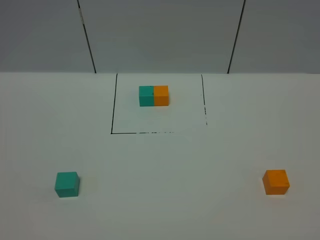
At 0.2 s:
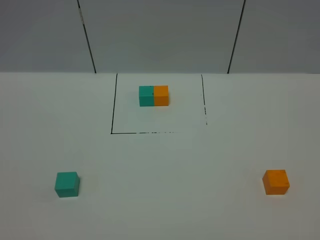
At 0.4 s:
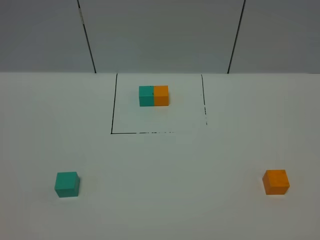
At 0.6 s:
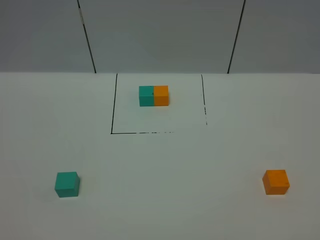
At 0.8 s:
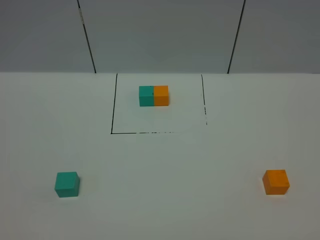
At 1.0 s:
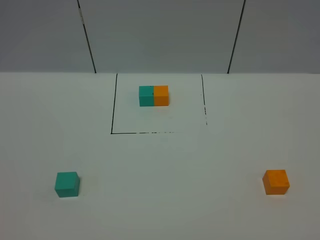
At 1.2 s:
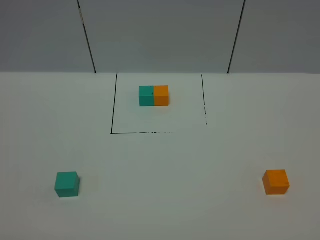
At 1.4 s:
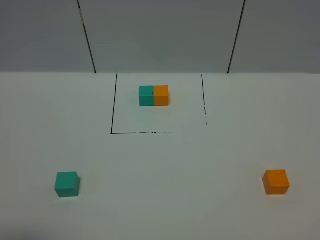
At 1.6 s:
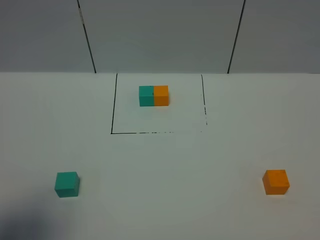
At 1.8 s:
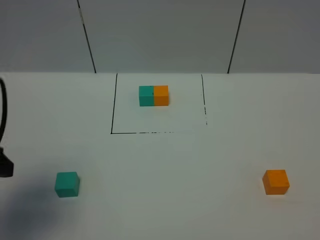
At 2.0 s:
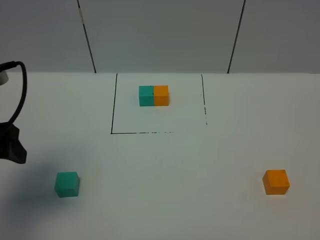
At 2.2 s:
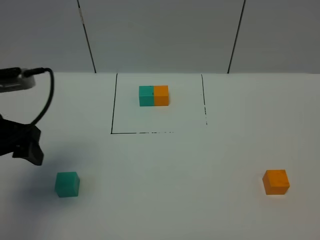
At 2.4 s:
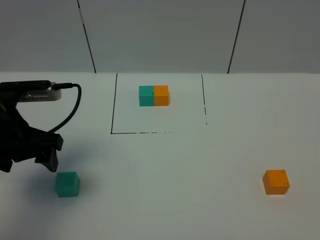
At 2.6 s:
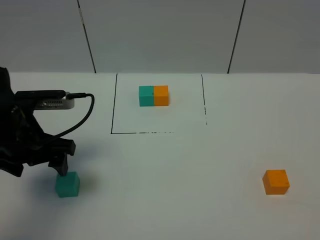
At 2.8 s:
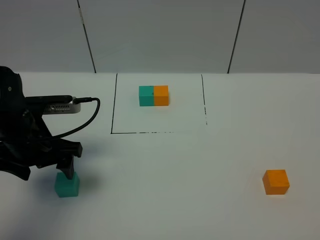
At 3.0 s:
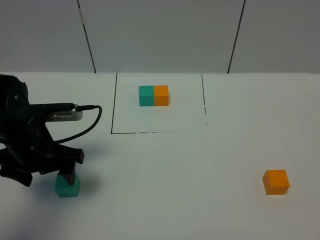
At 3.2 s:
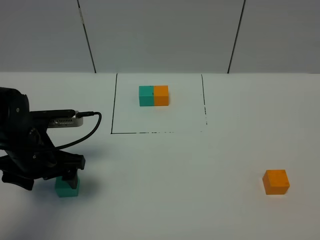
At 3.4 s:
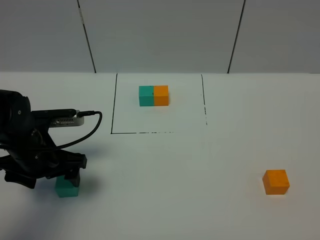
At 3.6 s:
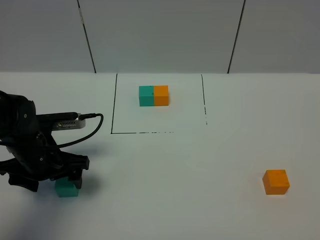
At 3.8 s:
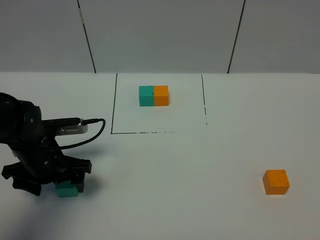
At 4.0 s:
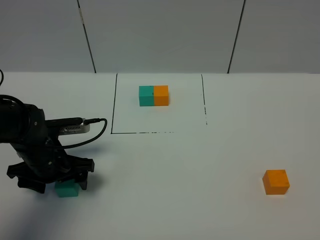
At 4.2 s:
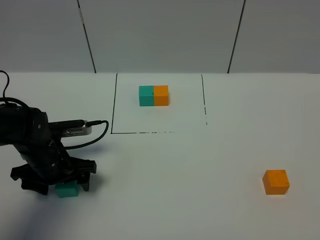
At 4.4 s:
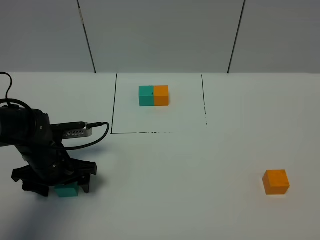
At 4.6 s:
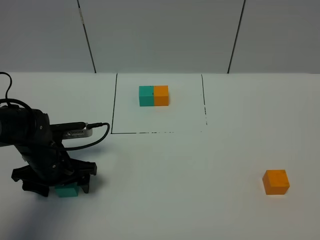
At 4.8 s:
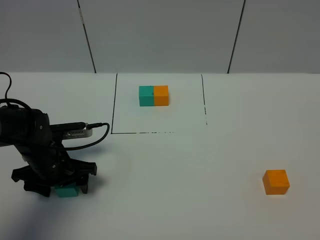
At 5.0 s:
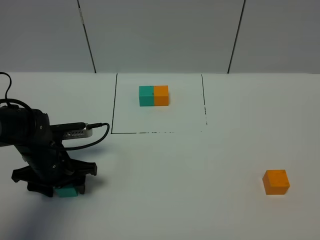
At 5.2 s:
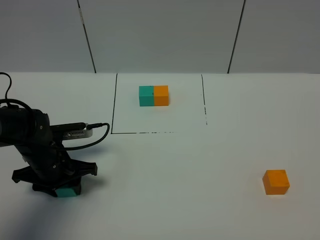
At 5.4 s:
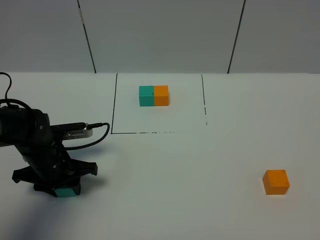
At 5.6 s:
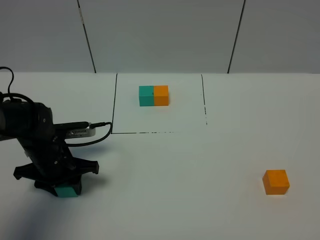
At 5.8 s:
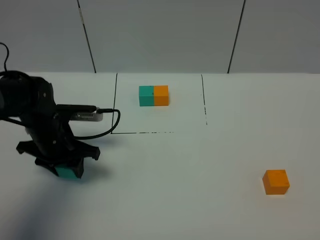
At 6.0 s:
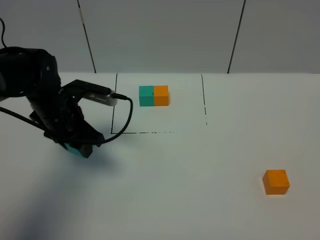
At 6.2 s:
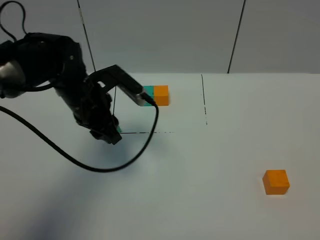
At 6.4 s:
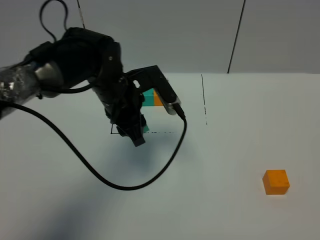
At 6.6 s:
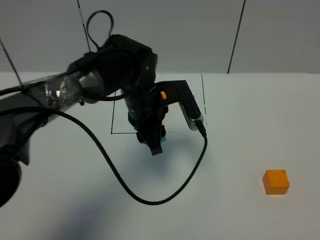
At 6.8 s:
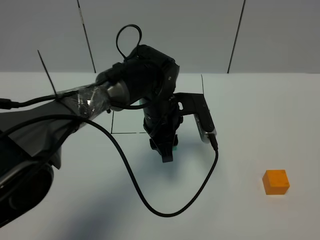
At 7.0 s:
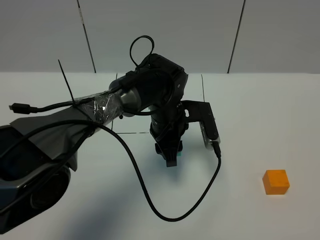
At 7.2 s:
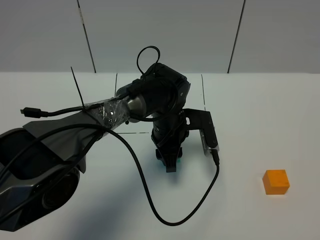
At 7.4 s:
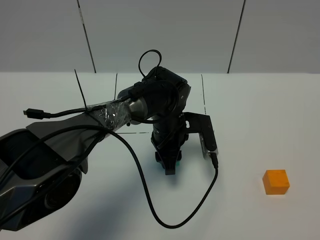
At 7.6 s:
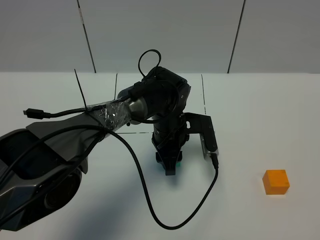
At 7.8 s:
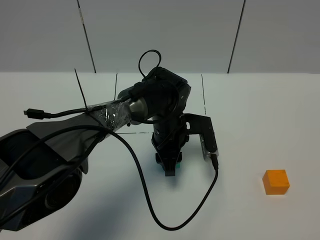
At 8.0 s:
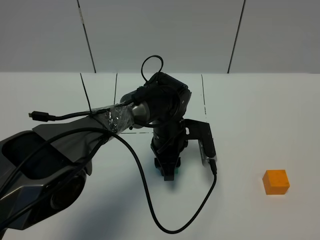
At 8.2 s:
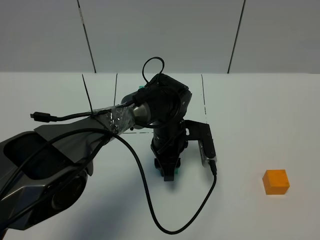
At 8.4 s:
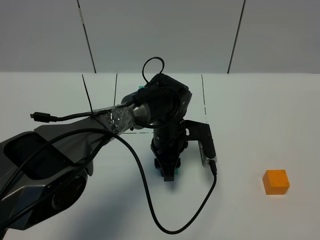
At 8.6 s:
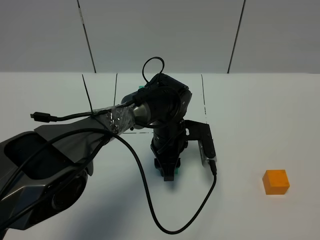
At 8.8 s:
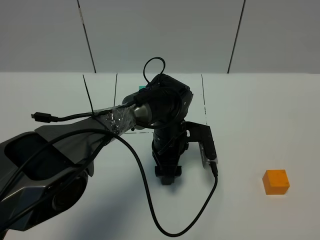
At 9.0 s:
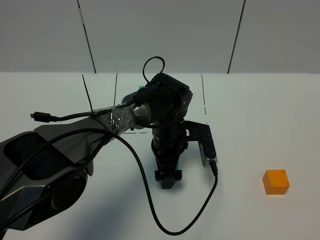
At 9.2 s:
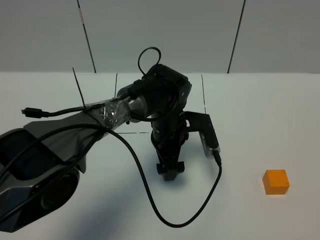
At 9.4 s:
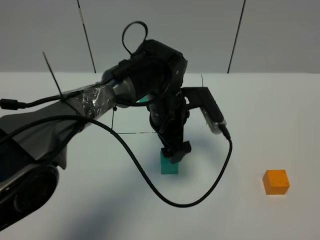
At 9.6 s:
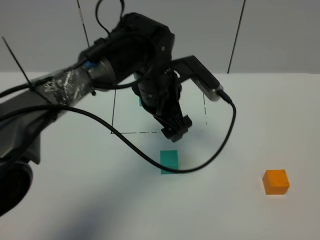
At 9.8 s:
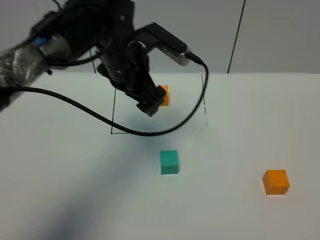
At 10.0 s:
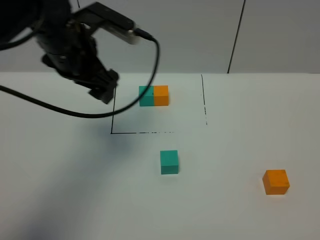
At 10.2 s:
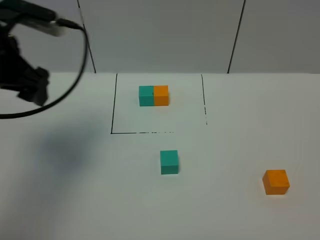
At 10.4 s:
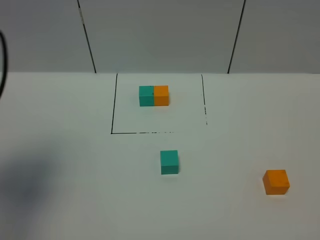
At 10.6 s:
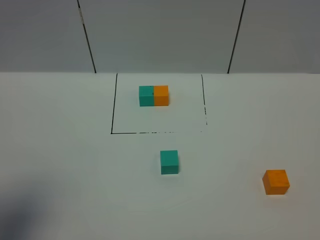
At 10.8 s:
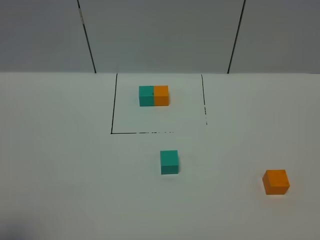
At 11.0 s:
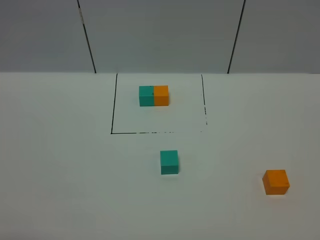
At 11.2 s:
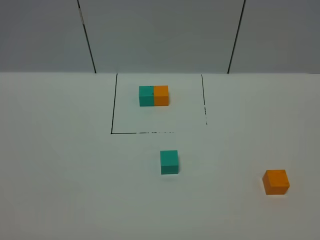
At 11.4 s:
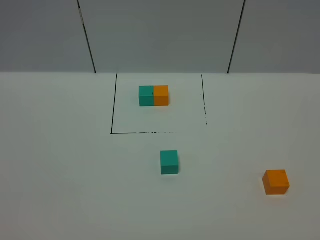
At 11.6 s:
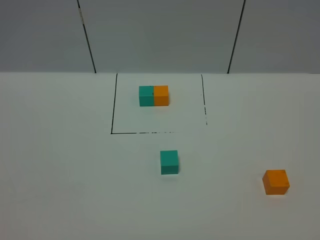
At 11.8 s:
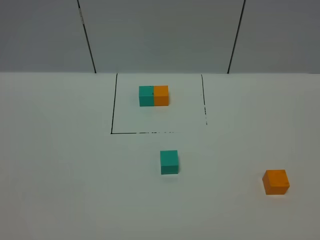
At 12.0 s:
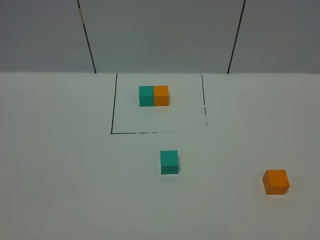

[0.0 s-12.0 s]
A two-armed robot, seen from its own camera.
Task of the whole recording: According to the building block template in front, assemble the scattered blocks together.
Step, 1.8 to 8.8 s: Put the green cube in the center of the table.
0.0 to 1.6 s: The left gripper is displaced forward by roughly 15 cm.
1.6 to 3.0 s: The left gripper travels forward, downward and to the right by roughly 20 cm.
3.0 to 4.4 s: The left gripper travels downward by about 10 cm.
4.4 to 6.0 s: The left gripper goes some 10 cm upward and forward, and closes up.
6.0 to 7.6 s: The left gripper shifts roughly 20 cm to the right.
7.6 to 9.0 s: The left gripper opens its fingers.
9.0 to 10.4 s: The left gripper heads to the left, upward and backward, covering some 50 cm.
10.4 to 12.0 s: The left gripper shifts roughly 25 cm backward and downward.

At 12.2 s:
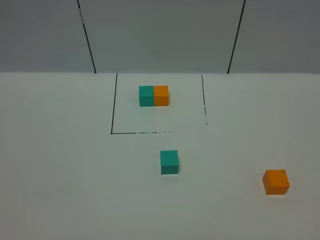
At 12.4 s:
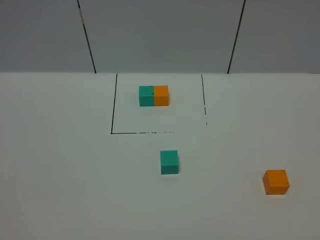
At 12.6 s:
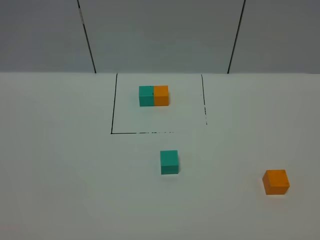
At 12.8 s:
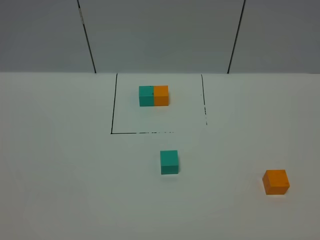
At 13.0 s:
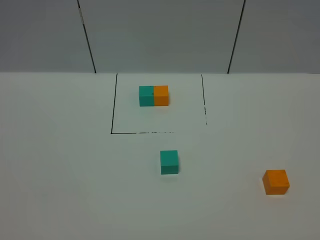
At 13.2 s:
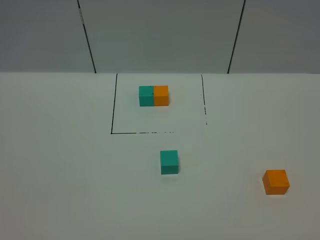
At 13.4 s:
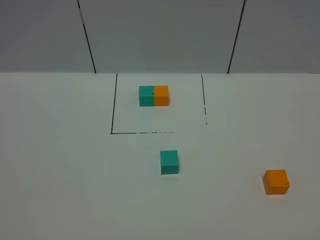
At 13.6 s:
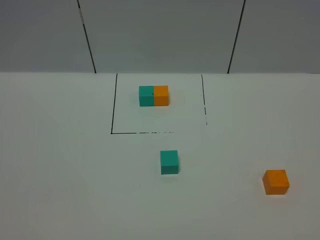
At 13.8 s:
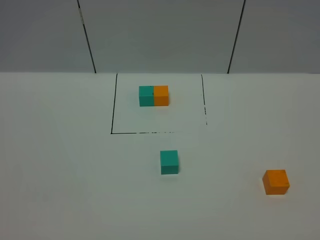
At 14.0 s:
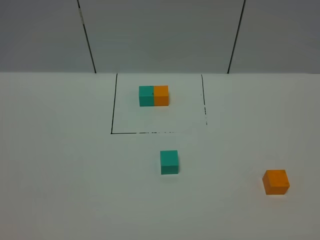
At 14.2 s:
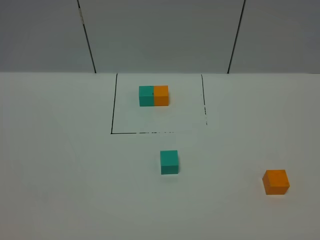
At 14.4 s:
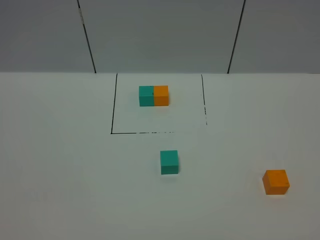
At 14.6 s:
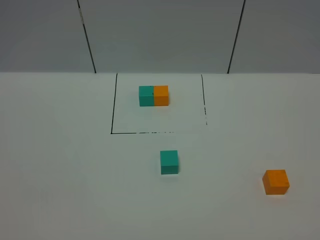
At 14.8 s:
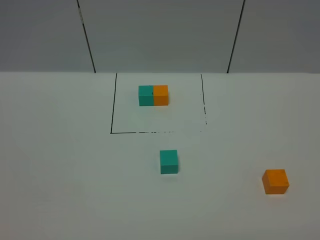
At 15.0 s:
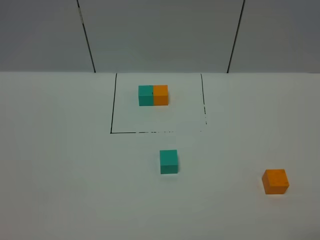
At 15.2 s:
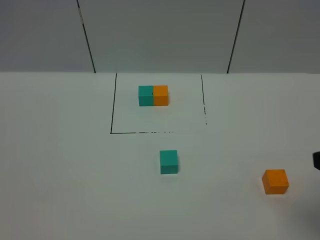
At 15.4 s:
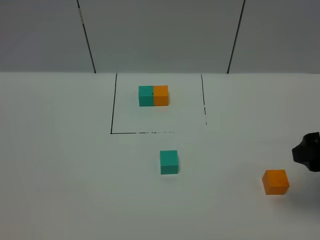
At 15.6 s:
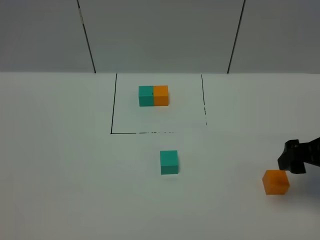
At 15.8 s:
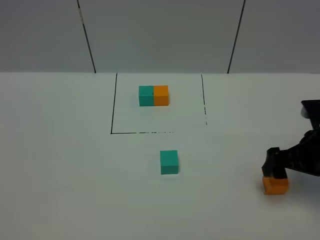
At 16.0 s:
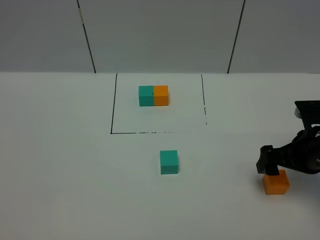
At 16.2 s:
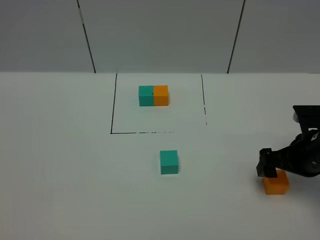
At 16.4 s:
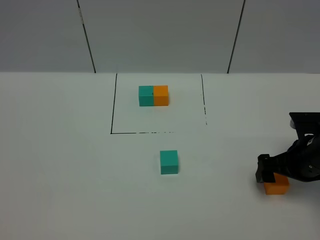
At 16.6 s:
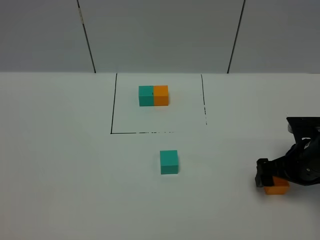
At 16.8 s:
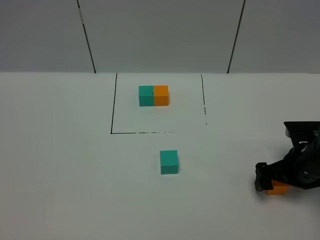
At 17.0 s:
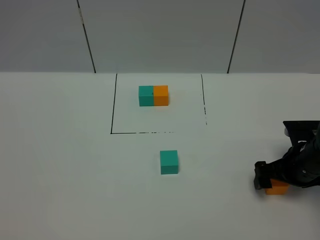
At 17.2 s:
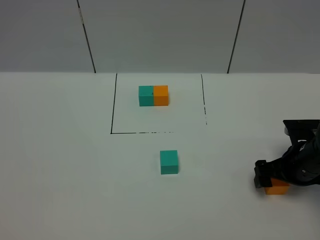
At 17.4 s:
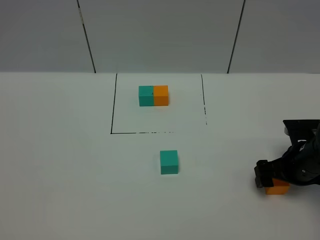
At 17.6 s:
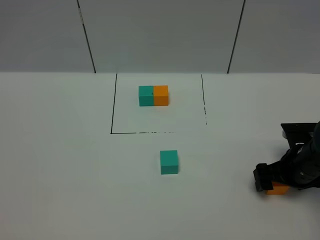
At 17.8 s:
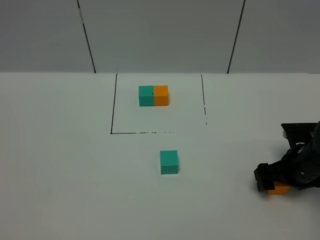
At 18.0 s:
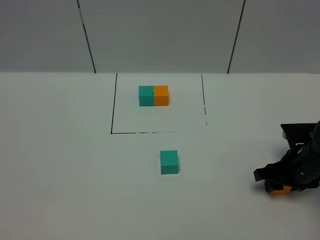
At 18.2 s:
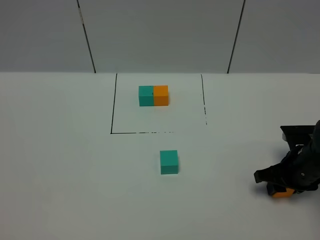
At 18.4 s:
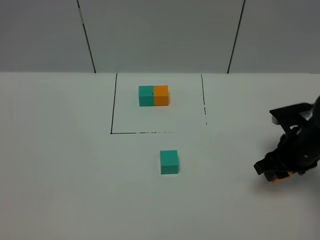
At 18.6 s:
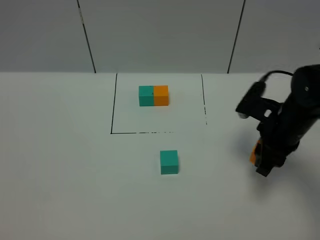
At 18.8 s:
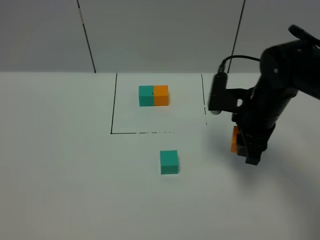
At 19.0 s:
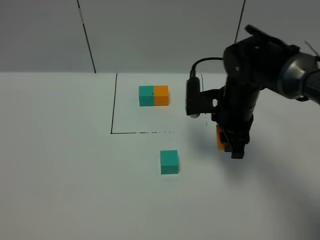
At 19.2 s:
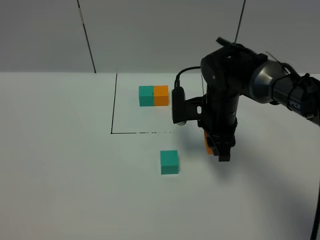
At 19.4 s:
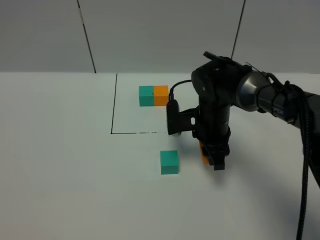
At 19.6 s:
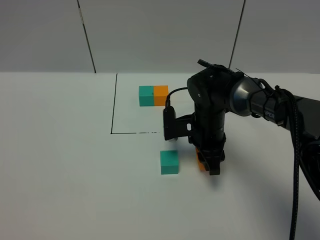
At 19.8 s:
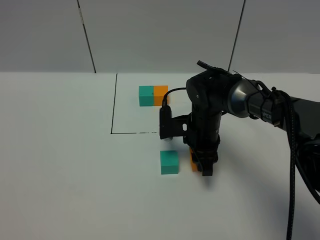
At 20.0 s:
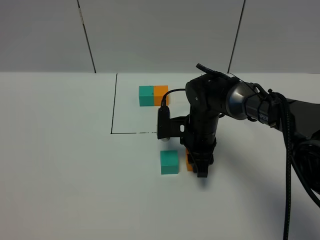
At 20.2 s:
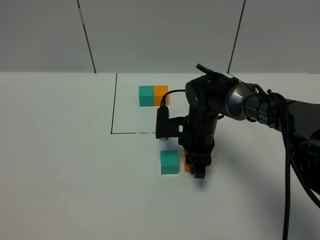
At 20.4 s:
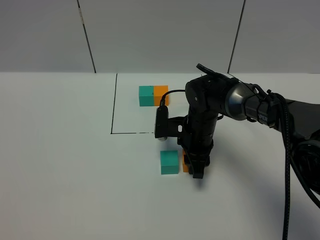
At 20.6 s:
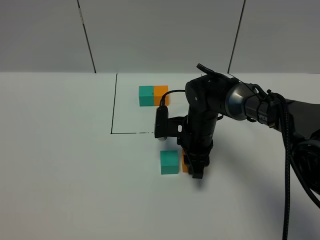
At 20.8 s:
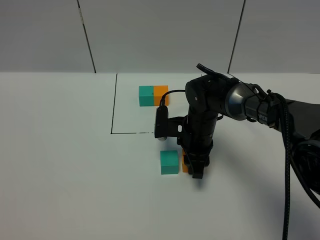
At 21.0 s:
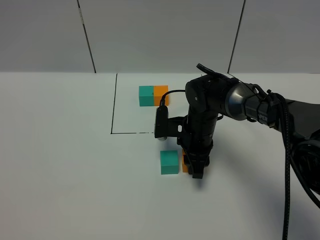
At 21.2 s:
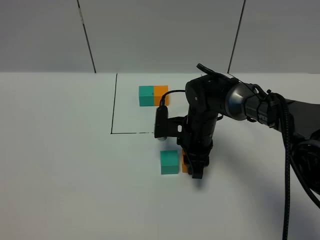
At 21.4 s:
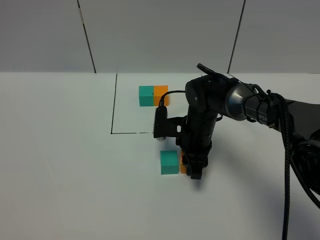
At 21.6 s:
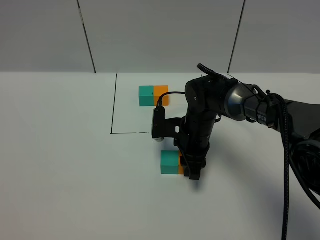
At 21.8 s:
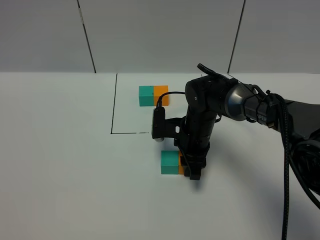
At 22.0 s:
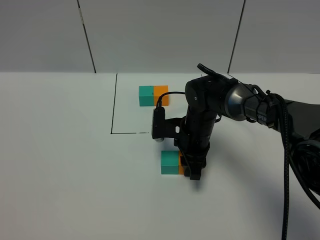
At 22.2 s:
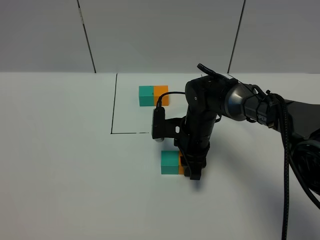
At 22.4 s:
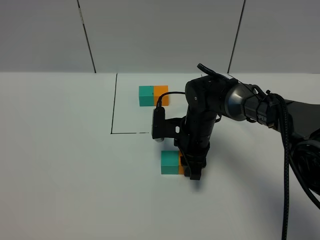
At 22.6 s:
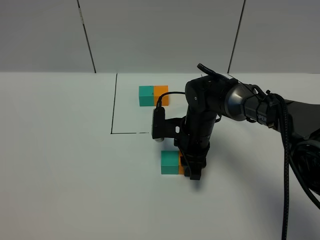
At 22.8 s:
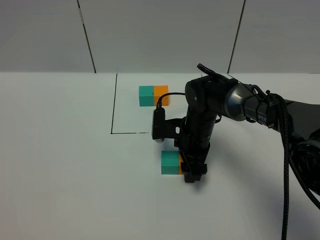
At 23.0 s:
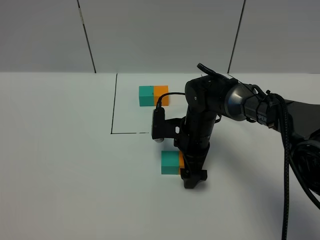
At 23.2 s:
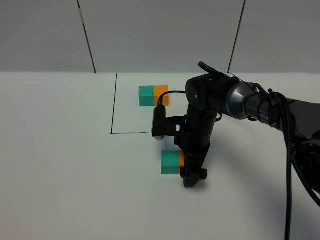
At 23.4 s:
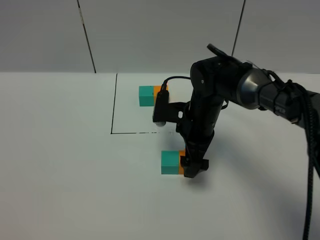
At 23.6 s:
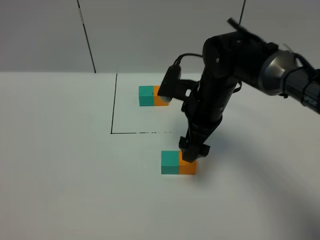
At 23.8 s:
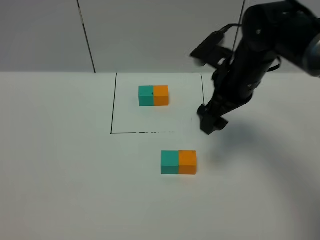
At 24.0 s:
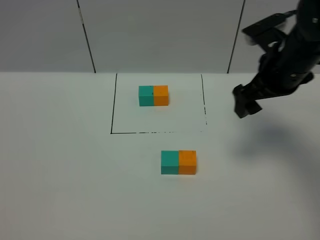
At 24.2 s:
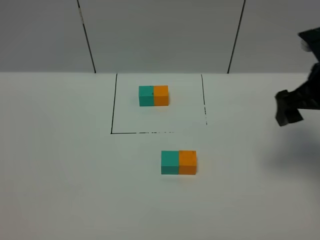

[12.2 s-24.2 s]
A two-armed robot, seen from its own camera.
Task of the whole recording: According to the building block template in front, assemble the scattered blocks together.
Step, 12.2 to 22.8 s: Put the orange cube on the right of the green cube.
12.2 to 13.8 s: Both grippers stay put.
13.8 to 15.2 s: The right gripper shifts some 15 cm forward.
15.2 to 16.6 s: The right gripper goes approximately 25 cm downward and forward.
16.6 to 18.2 s: The right gripper closes up.
18.2 to 19.8 s: The right gripper shifts about 20 cm to the left and forward.
19.8 to 21.2 s: The grippers move only a little.
21.2 to 22.6 s: The two grippers keep their place.
22.6 to 24.2 s: The right gripper heads to the right and upward, covering roughly 25 cm, and opens.
